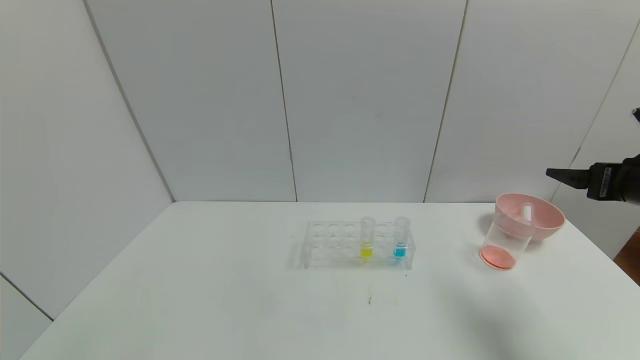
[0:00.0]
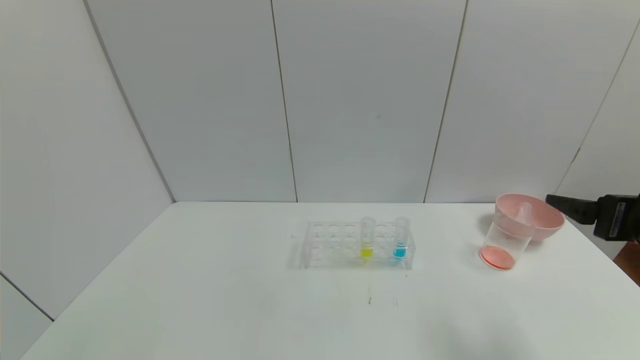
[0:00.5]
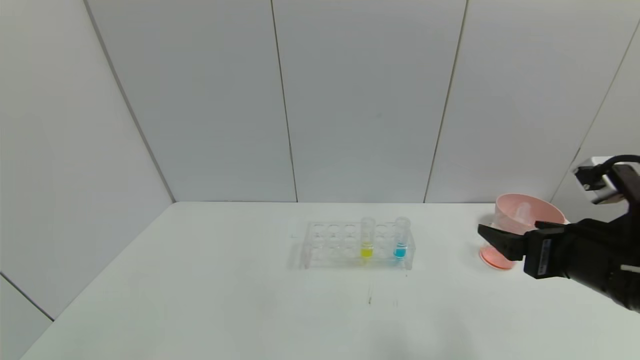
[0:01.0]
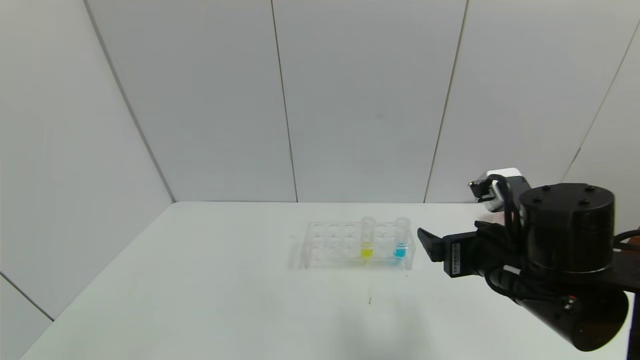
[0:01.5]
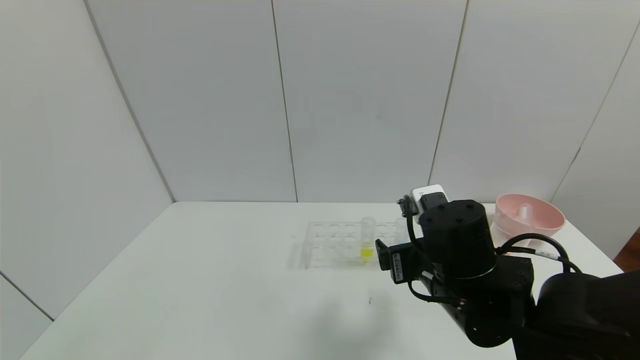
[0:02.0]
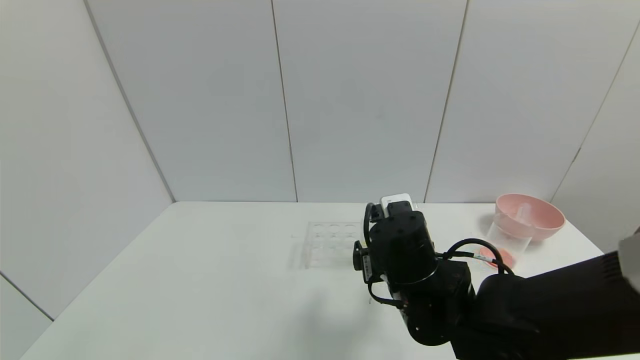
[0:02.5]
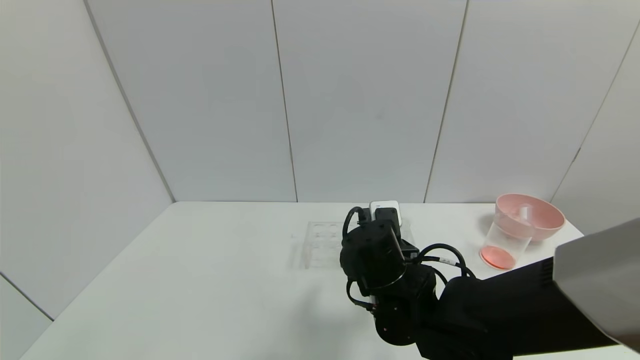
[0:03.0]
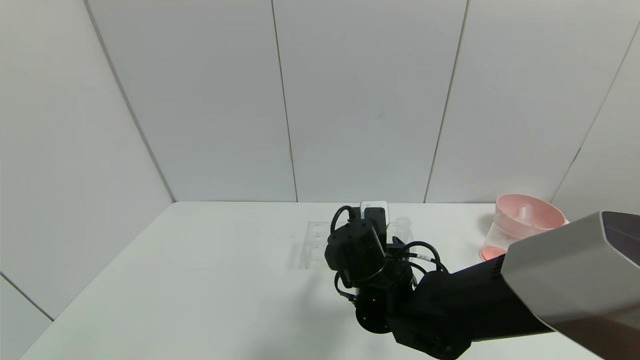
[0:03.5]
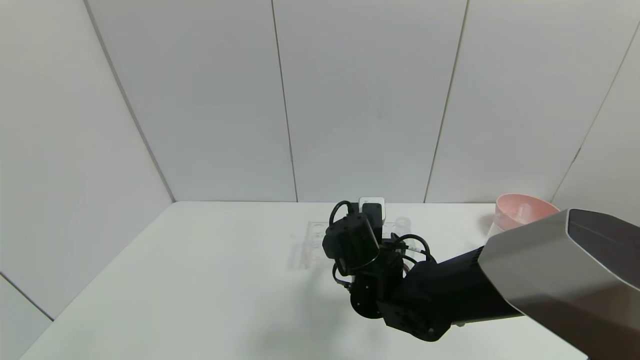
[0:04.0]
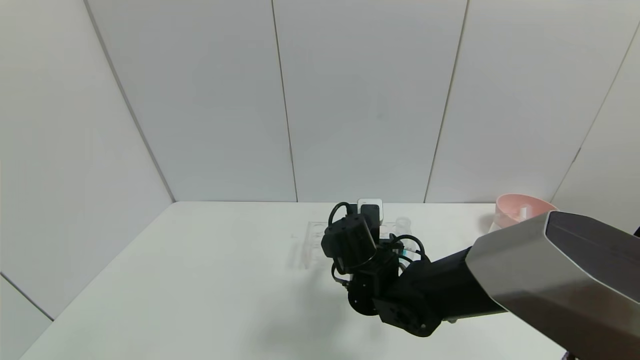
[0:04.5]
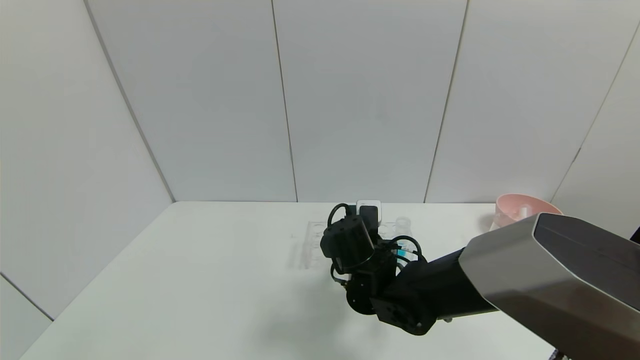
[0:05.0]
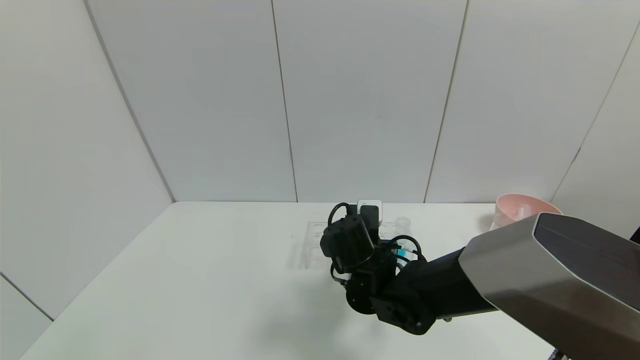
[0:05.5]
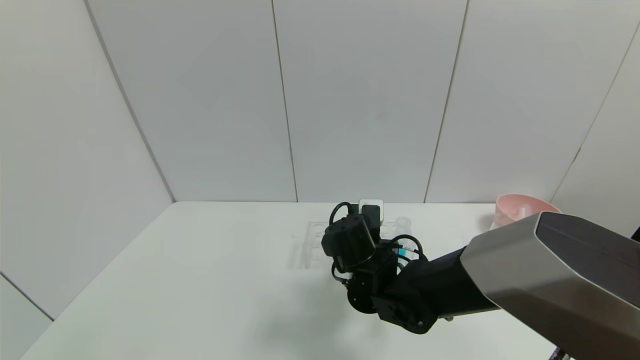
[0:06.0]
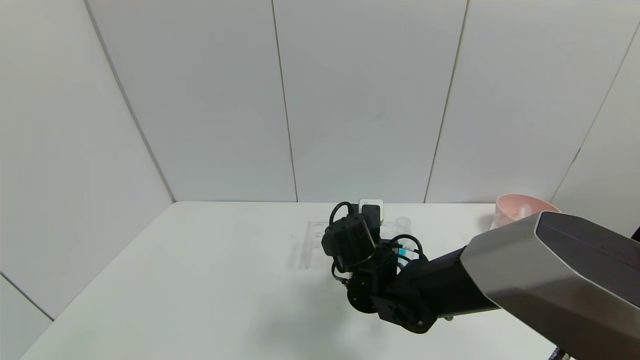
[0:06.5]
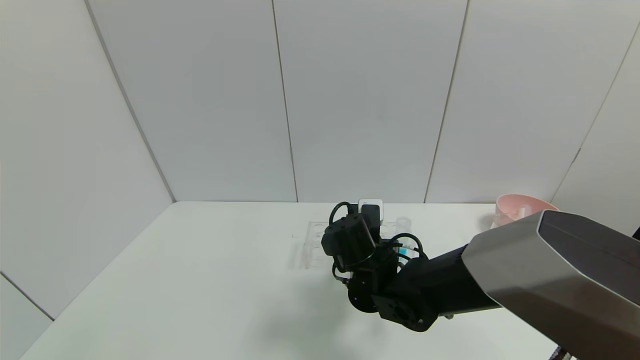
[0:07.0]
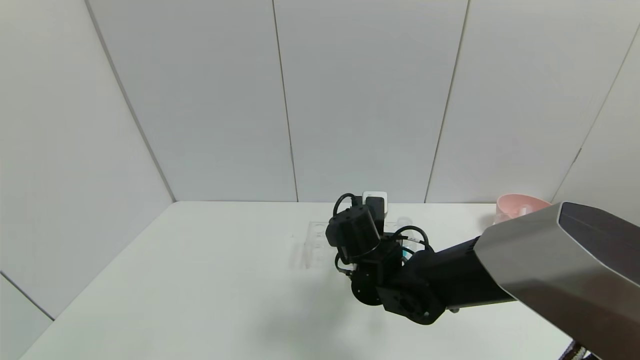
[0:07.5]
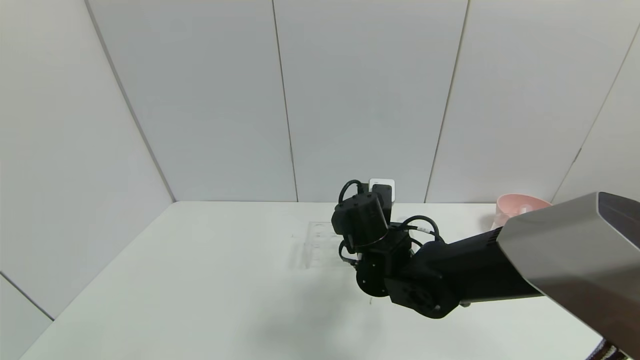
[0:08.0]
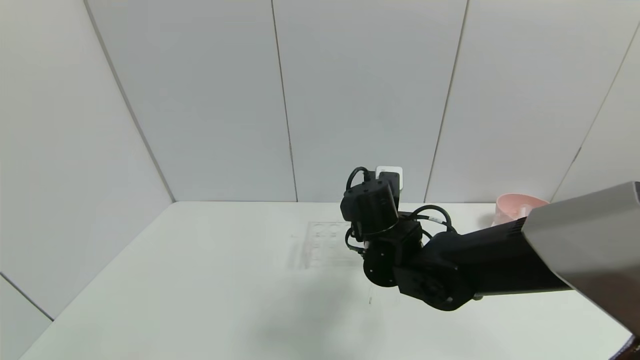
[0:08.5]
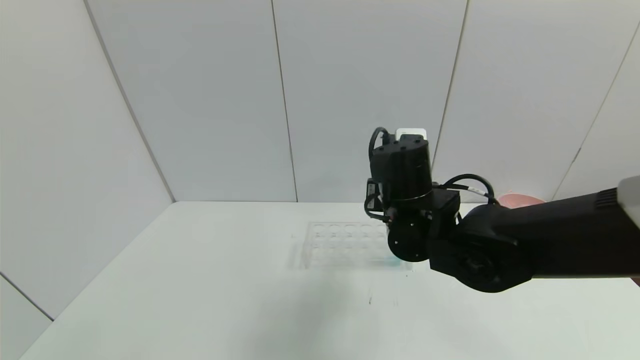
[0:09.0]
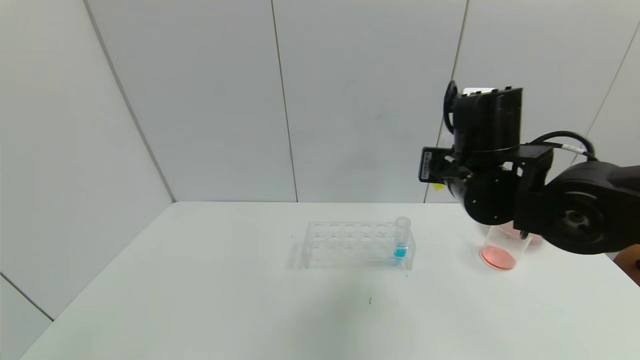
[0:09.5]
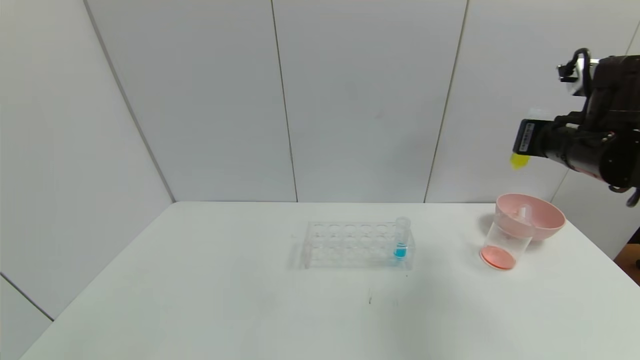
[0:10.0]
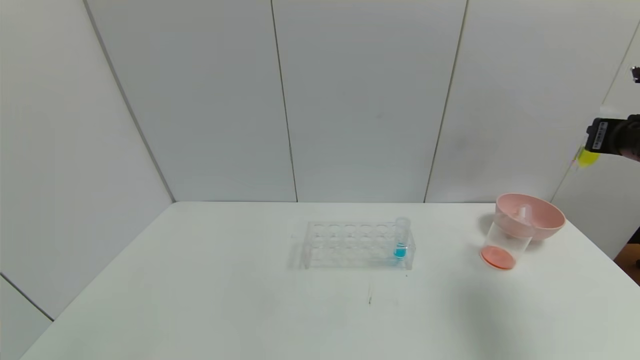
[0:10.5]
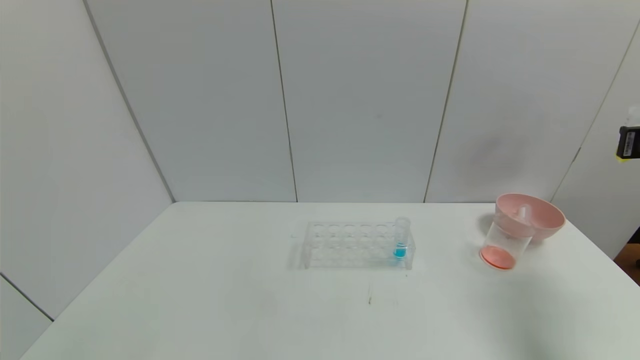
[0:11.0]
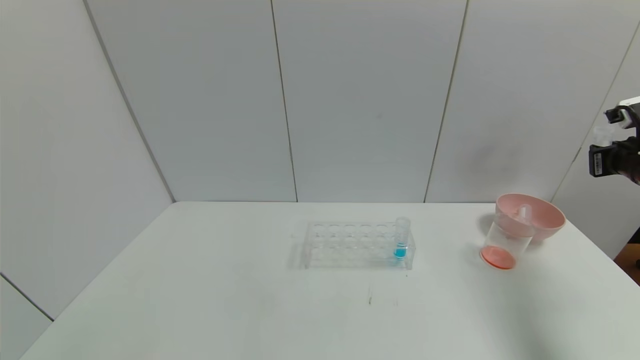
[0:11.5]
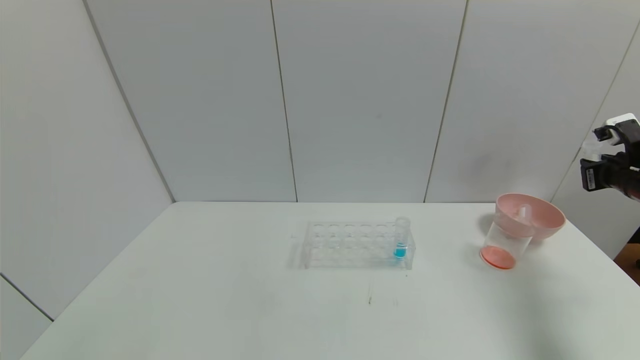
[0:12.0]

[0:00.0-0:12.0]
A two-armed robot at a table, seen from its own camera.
Task of the whole recording: pick up the test tube with yellow pigment and the test tube with red pigment by grippers and pour them into the beaker.
Step, 0:00.5 to 0:11.0: Pick up the test tube containing the yellow reagent with right gripper.
0:00.0 to 0:02.0: The right gripper goes roughly 25 cm to the left.
0:02.0 to 0:04.0: The right gripper travels to the left, forward and downward by roughly 10 cm.
0:04.0 to 0:06.0: The right gripper closes up.
0:06.0 to 0:08.0: The grippers make only small movements.
0:08.0 to 0:10.0: The right gripper is displaced to the right and upward by roughly 30 cm.
0:10.0 to 0:12.0: The right gripper goes some 20 cm to the right and downward.

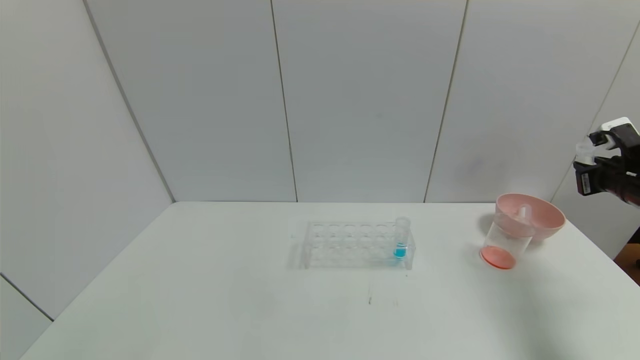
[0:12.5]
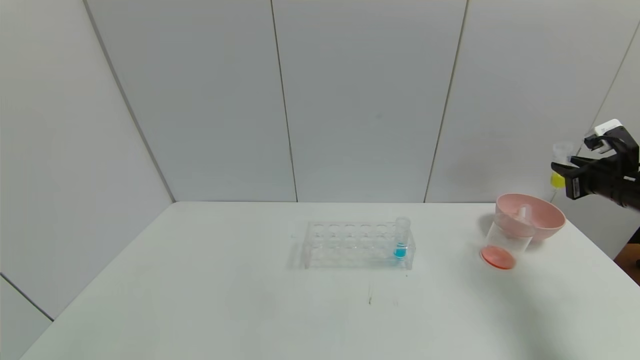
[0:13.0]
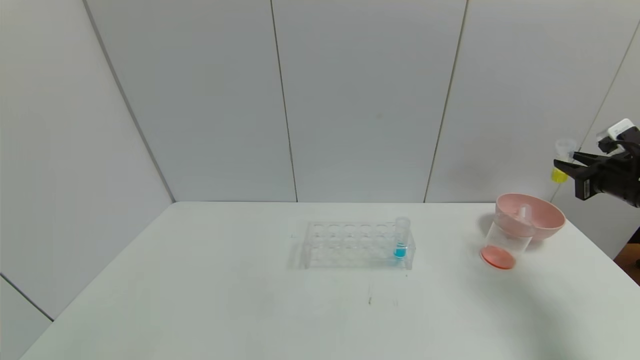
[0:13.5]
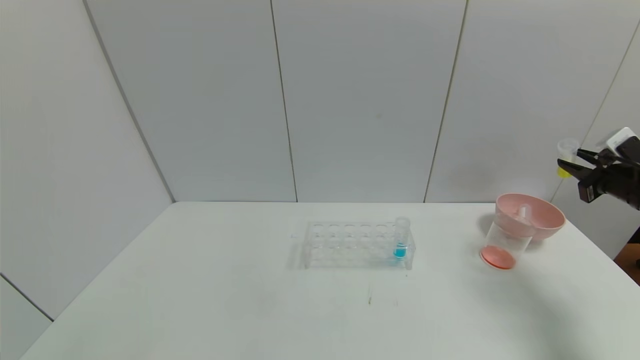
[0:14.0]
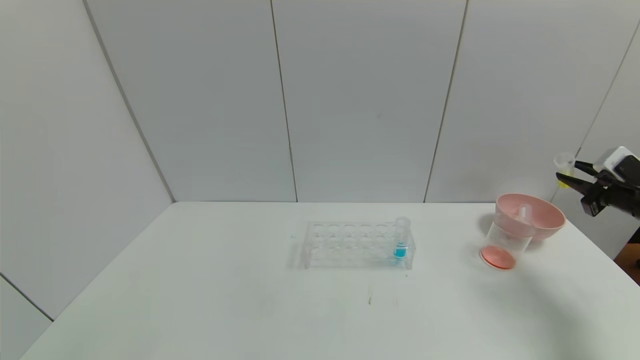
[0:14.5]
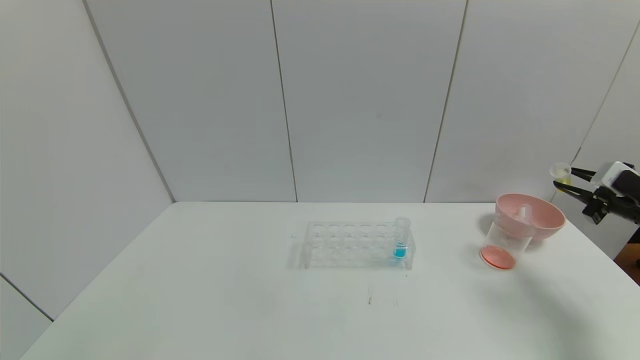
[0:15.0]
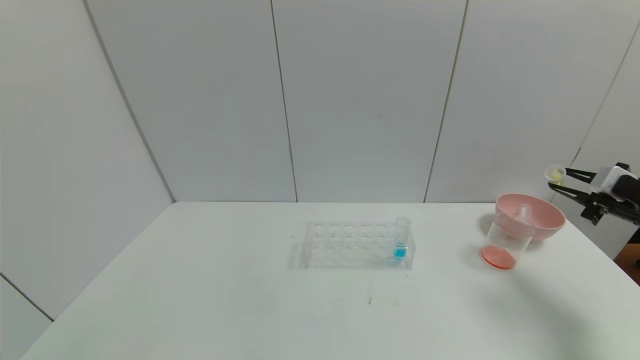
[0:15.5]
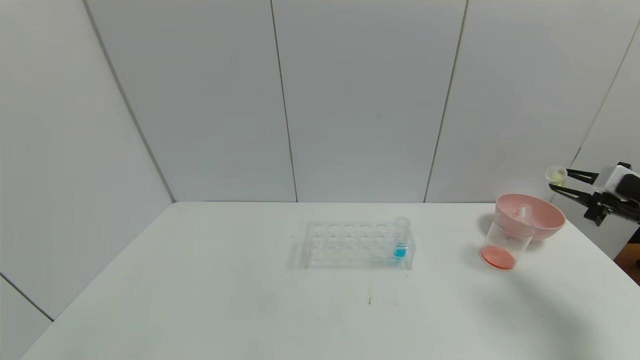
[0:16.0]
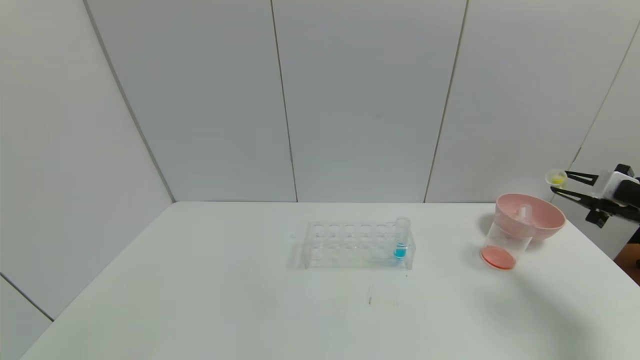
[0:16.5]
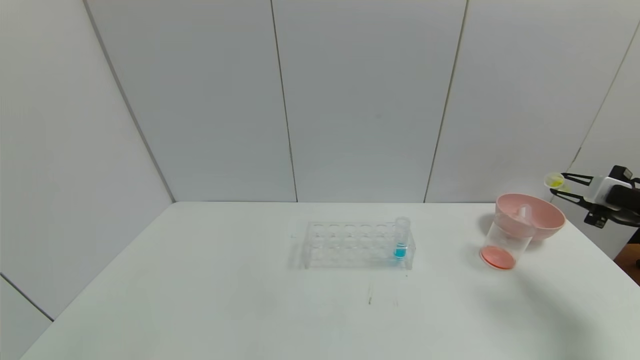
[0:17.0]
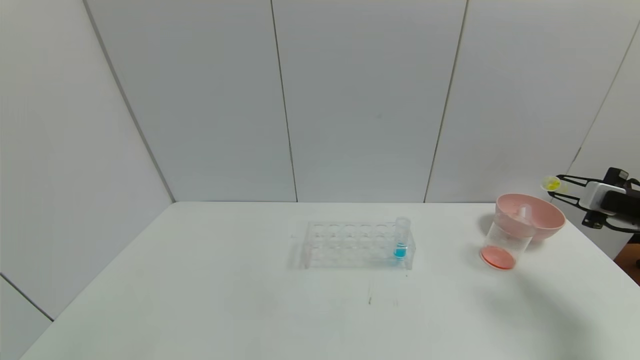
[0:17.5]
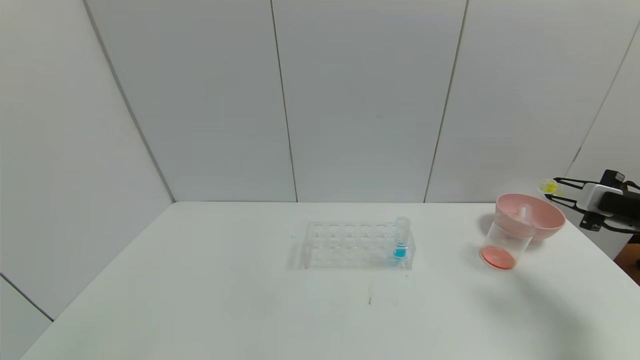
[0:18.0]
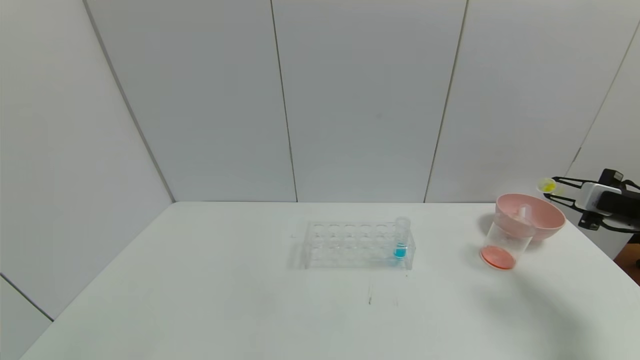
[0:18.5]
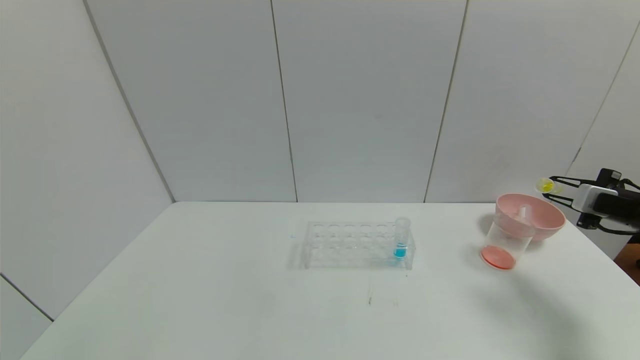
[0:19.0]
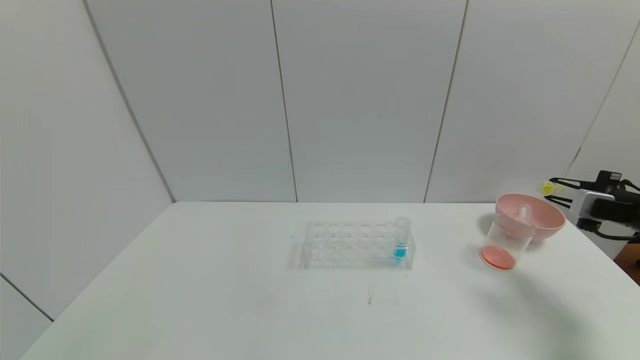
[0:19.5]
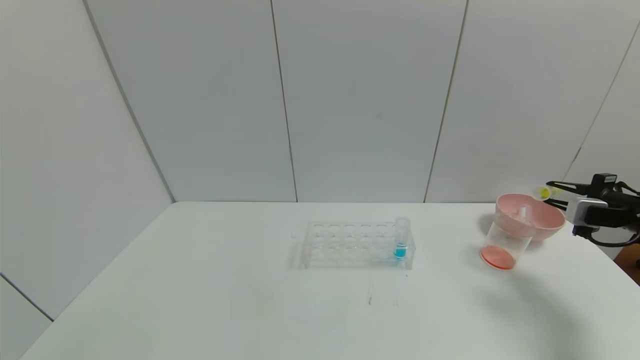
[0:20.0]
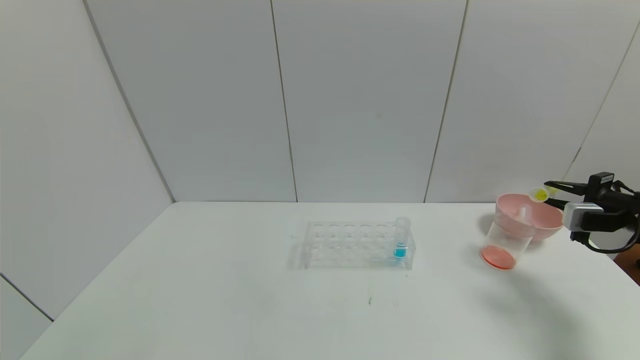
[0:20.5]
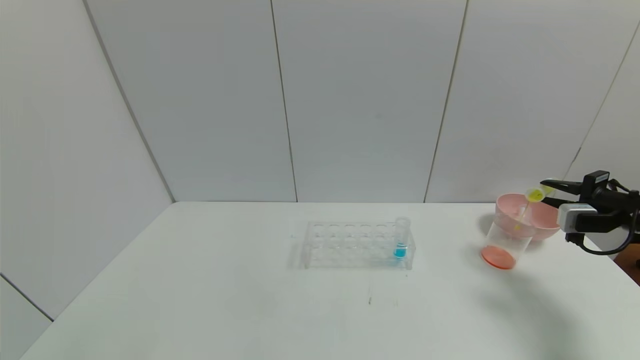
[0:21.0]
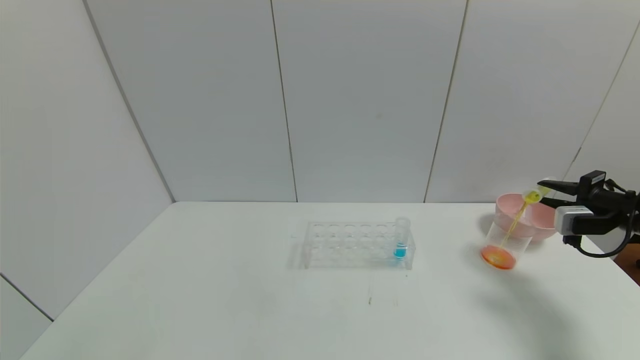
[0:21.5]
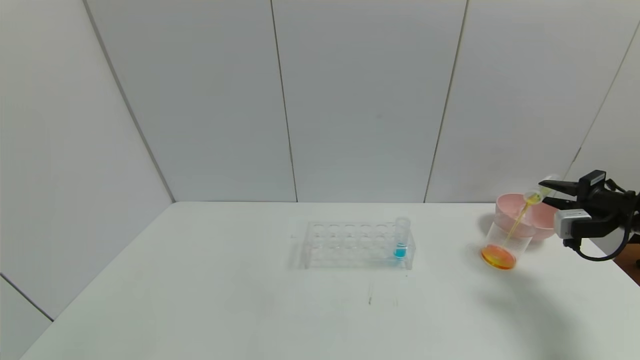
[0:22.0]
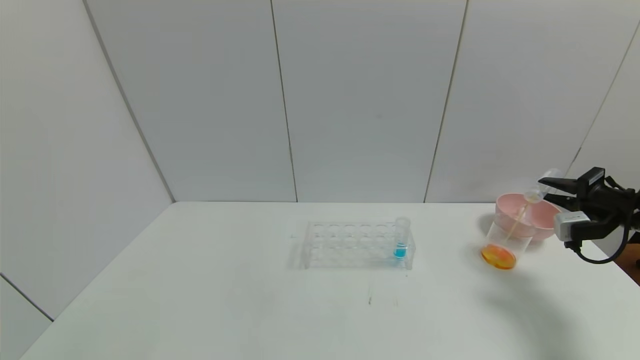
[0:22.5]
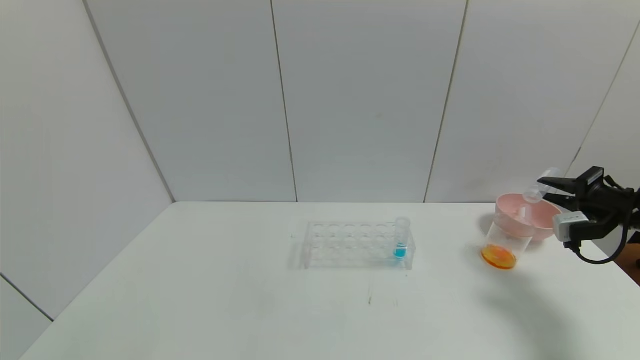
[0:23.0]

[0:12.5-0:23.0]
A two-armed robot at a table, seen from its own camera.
Task of the whole recording: pick up the test tube with yellow pigment and the test tube with red pigment by grippers and pour them into the beaker.
0:14.5 to 0:16.5: The grippers move only a little.
0:16.5 to 0:19.0: The grippers stay close to where they were, moving slightly.
0:21.0 to 0:23.0: The grippers stay close to where they were, moving slightly.
